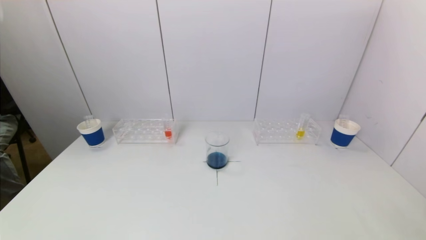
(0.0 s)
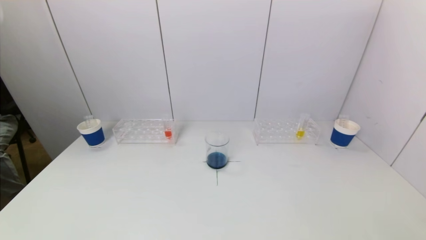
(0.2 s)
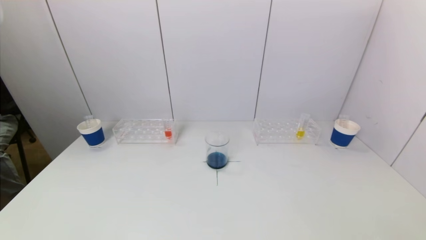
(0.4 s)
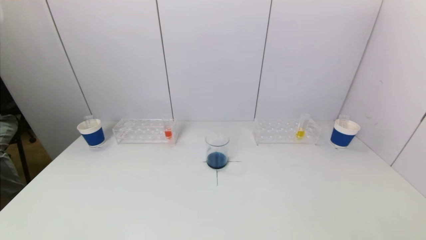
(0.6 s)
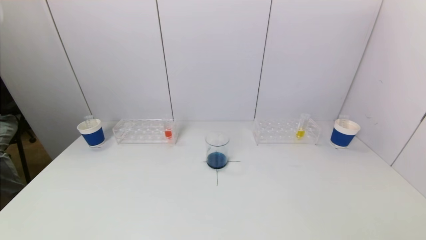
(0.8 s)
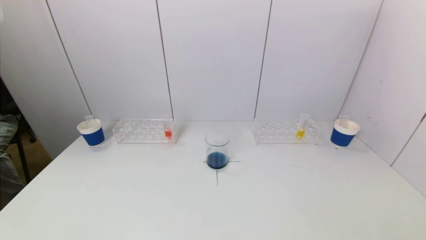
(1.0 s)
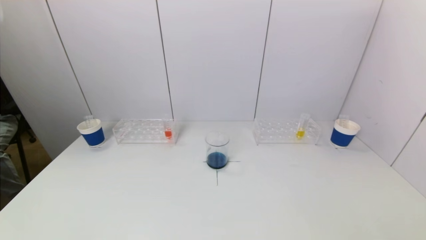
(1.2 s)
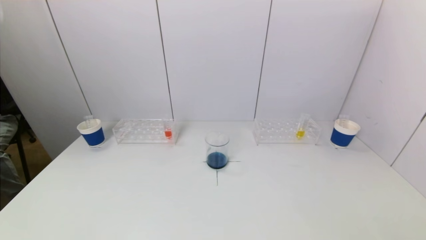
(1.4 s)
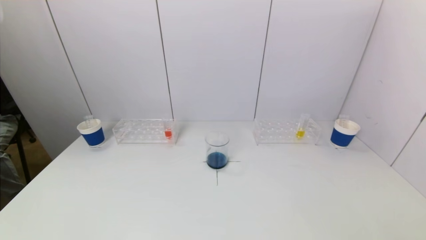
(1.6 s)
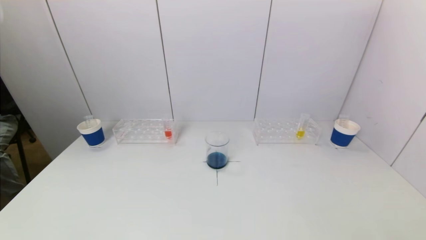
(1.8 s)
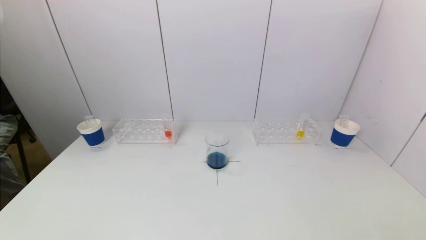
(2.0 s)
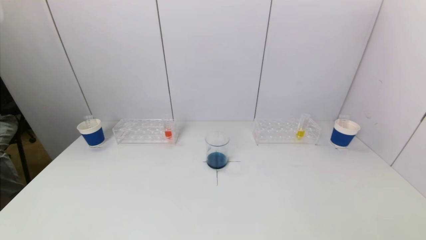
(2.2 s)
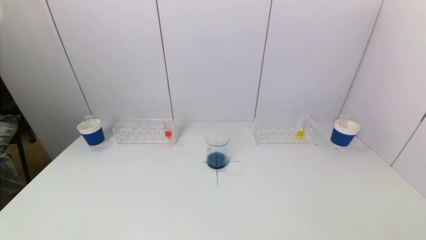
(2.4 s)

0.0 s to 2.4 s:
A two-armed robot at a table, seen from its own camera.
Task of the whole recording: pick up a test tube with pigment on left test tube rack and a test tube with pigment on right test tube rack by grippers and pour them into the beaker.
1.2 to 2.4 s: Both grippers stay put.

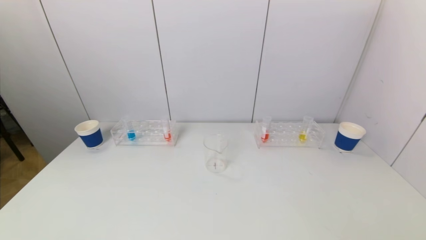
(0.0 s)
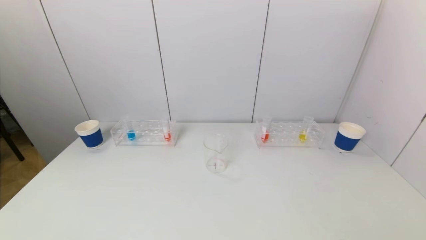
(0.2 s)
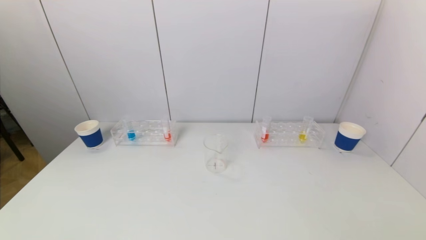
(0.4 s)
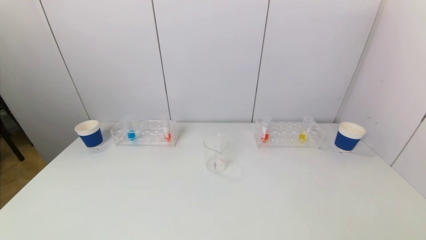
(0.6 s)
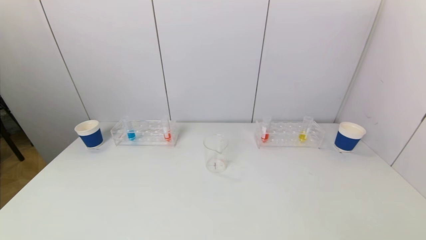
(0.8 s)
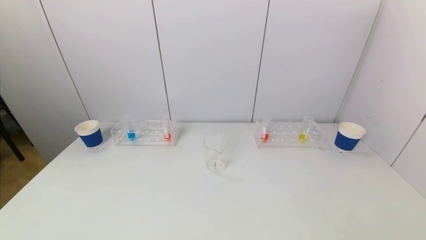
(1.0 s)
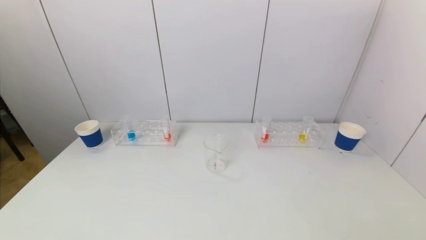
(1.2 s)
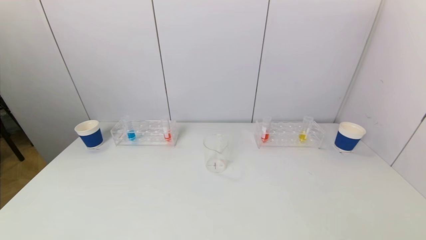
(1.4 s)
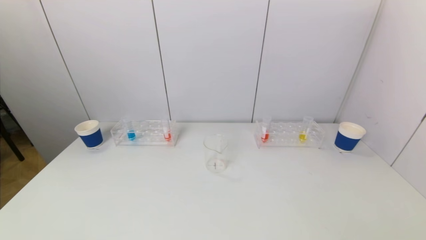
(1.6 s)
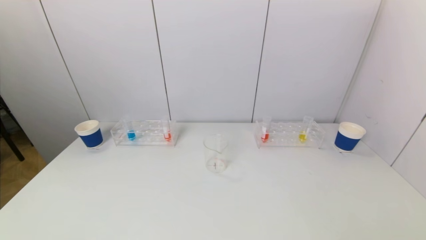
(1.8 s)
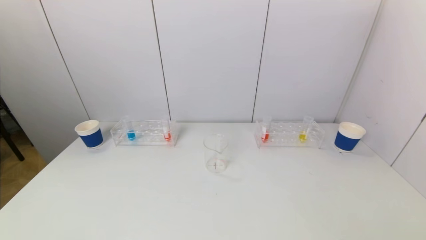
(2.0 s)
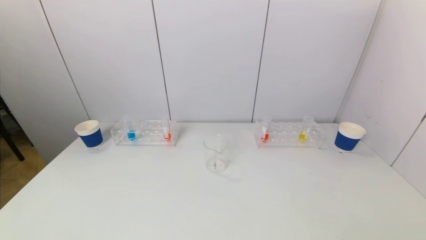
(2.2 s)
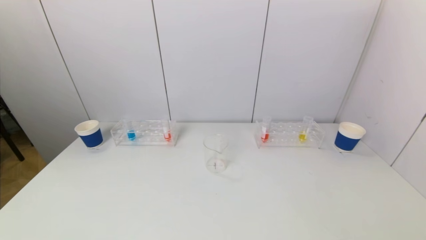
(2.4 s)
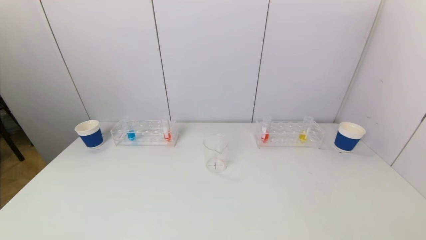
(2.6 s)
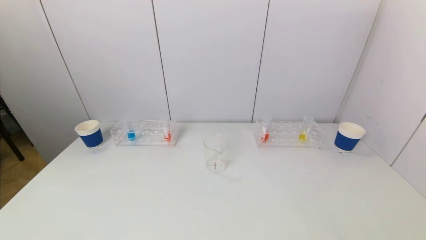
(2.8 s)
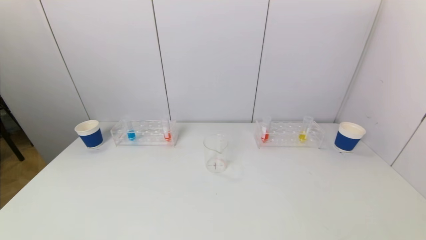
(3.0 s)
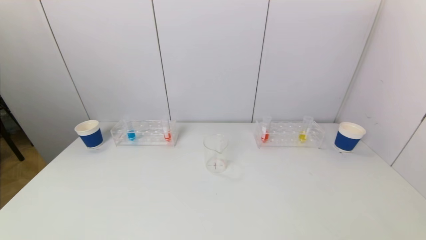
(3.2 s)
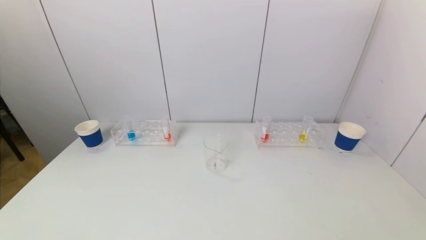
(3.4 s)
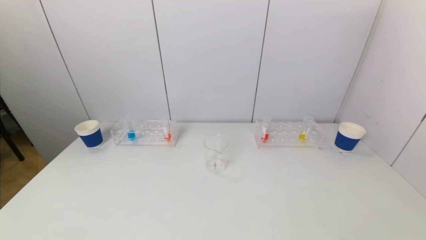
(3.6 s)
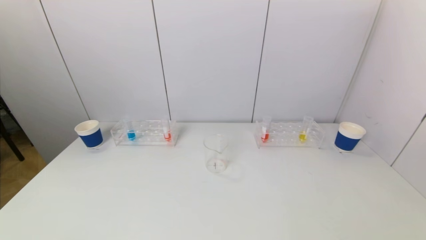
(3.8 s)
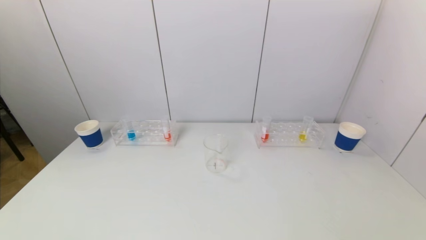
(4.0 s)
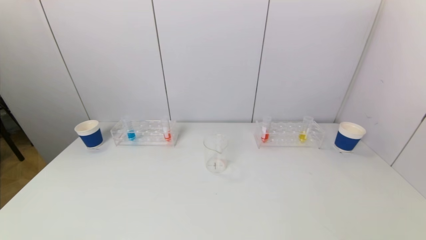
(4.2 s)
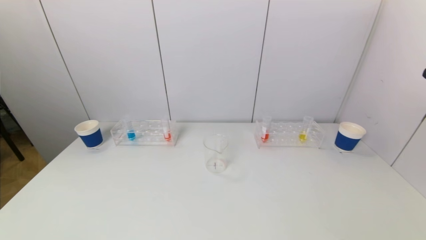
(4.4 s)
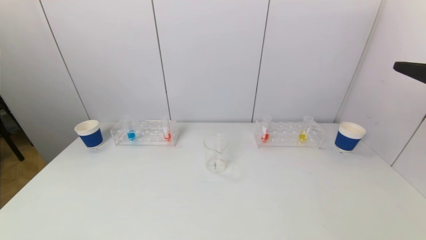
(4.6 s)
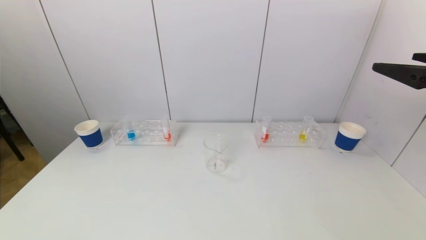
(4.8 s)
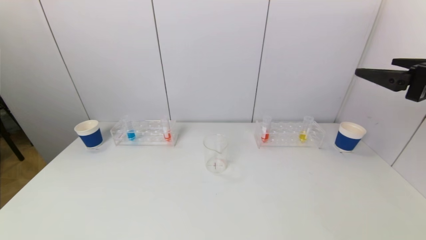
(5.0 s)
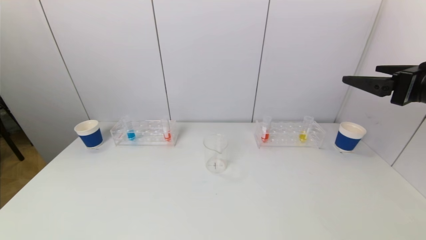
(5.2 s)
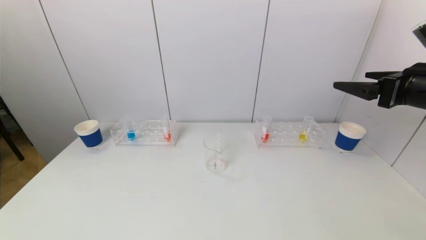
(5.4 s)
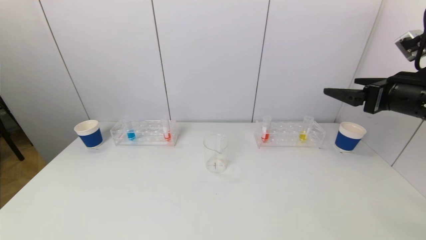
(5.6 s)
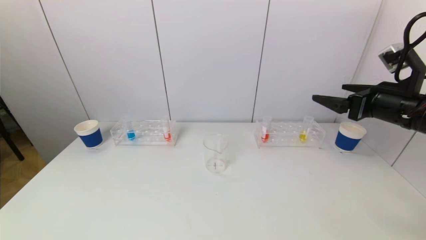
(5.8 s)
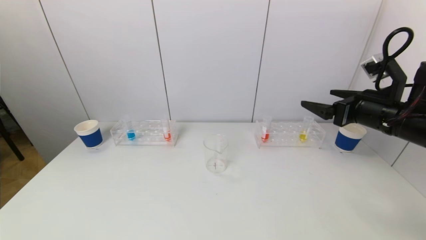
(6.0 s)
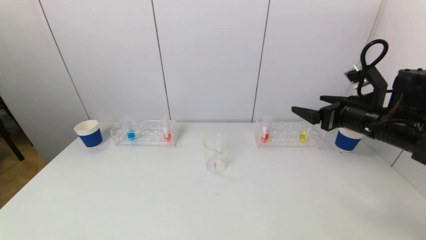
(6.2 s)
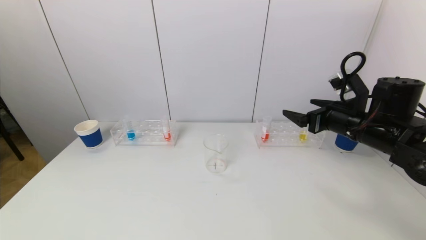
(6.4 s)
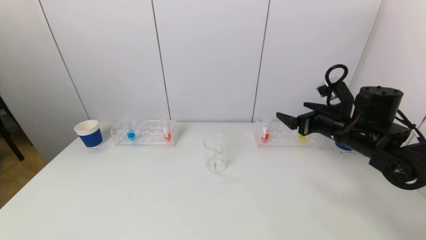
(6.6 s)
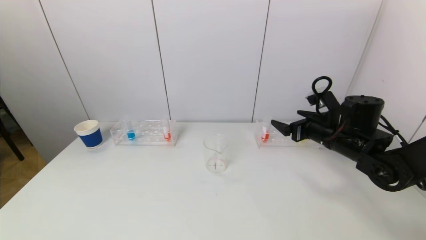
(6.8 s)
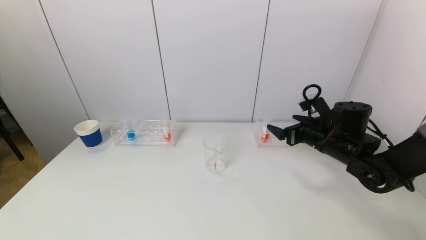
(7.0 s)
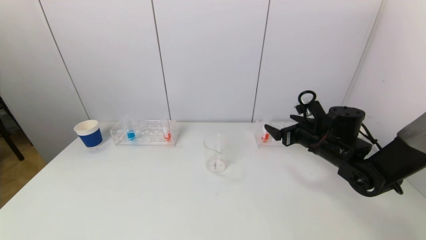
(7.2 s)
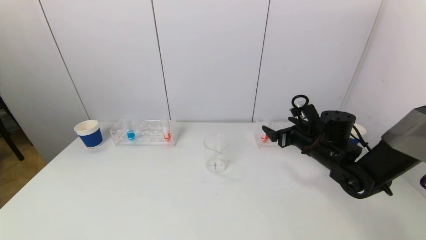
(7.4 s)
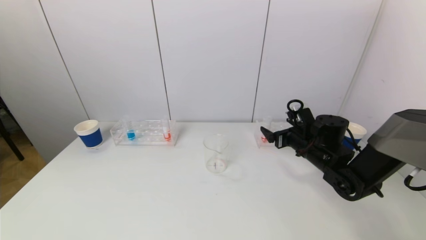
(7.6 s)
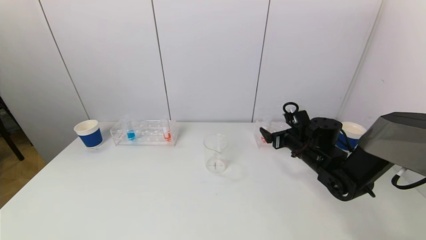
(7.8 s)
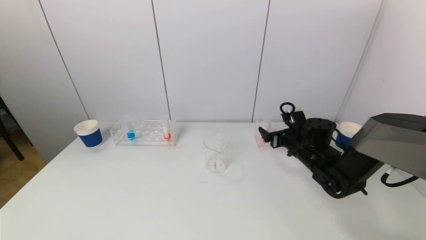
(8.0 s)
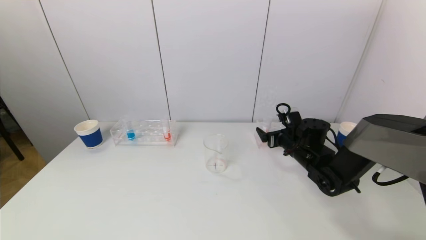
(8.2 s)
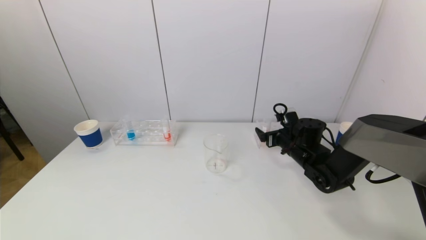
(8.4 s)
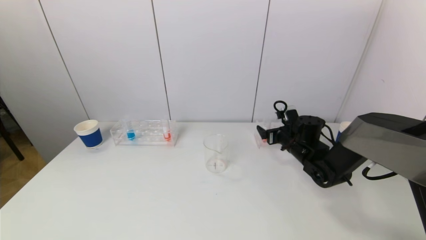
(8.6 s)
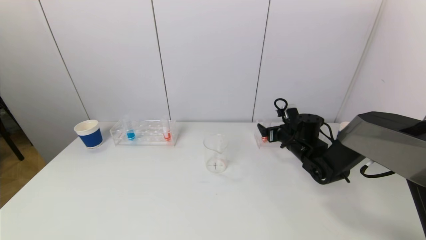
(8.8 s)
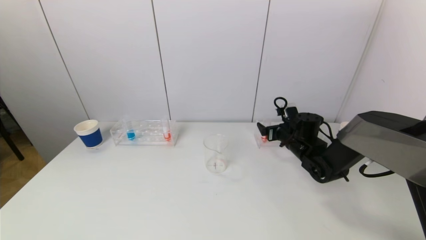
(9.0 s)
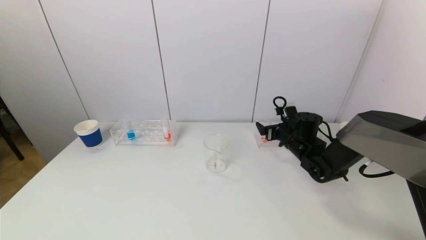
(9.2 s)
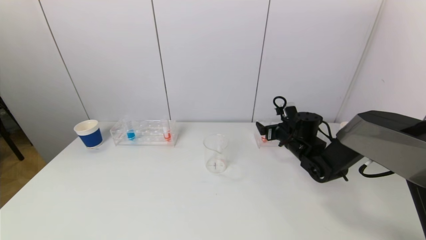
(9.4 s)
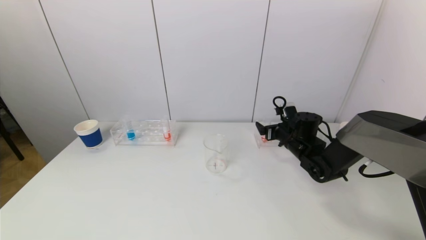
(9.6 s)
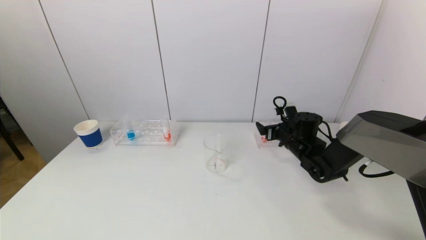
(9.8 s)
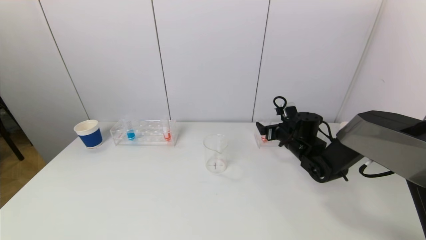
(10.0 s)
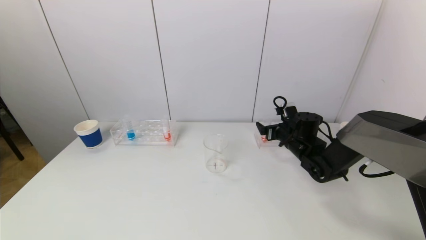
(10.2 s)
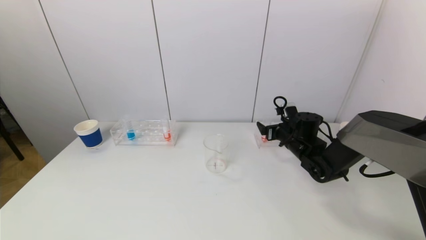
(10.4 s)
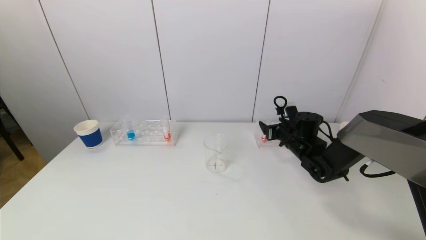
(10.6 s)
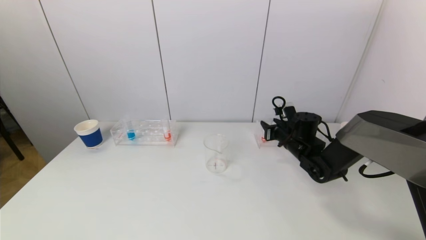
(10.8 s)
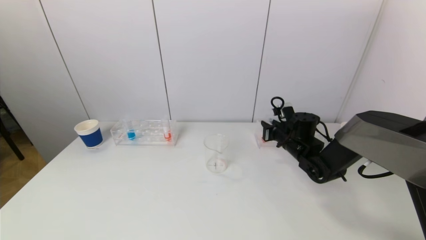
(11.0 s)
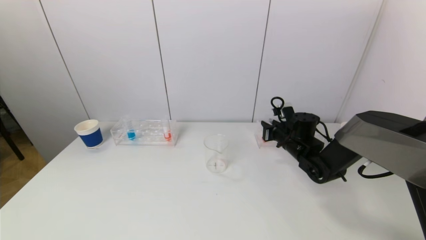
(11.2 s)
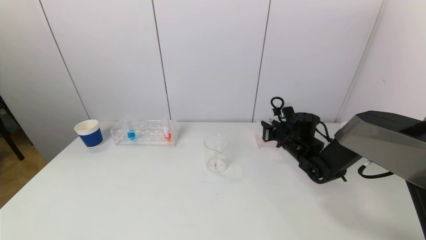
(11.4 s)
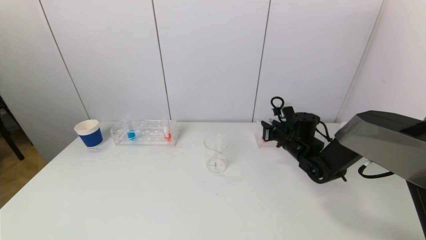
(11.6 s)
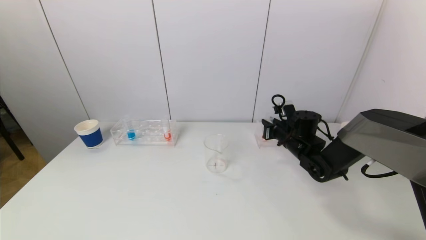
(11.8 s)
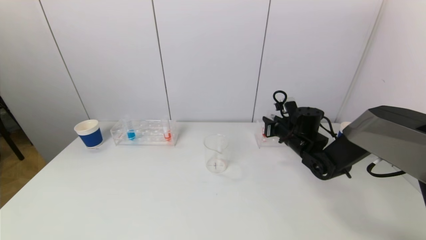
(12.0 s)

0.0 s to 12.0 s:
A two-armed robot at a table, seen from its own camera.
Task of the whole recording: pick up a test tube with pigment on left test tube rack and a test tube with pigment on right test tube rack by grippers and pour them into the beaker.
Step, 0.0 to 11.2 s: Grasp the red reagent with the right gripper.
0.0 to 1.6 s: Both grippers stay put.
4.4 to 6.0 s: The right gripper goes about 20 cm forward and downward.
6.0 to 7.6 s: The right gripper travels downward, forward and to the left by roughly 20 cm.
7.6 to 9.0 s: The right gripper travels forward by approximately 5 cm.
9.0 to 10.4 s: Both grippers stay put.
10.4 to 12.0 s: The right gripper closes.

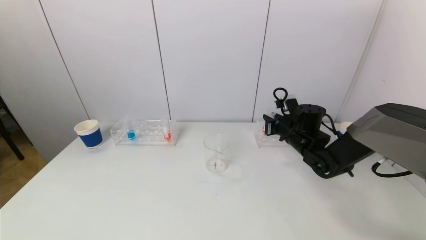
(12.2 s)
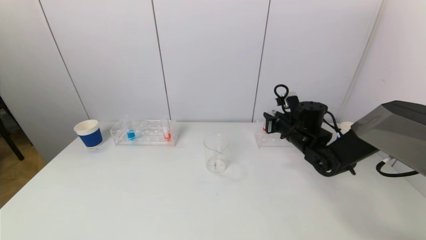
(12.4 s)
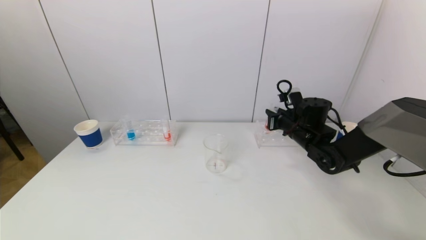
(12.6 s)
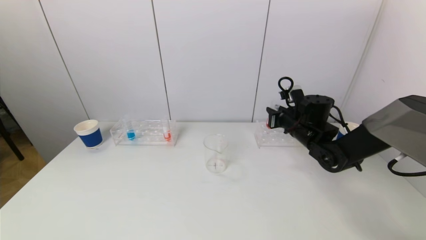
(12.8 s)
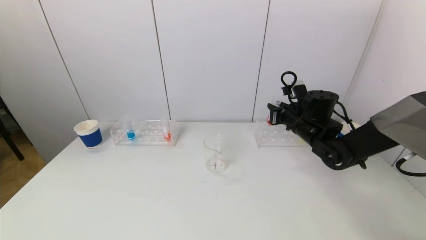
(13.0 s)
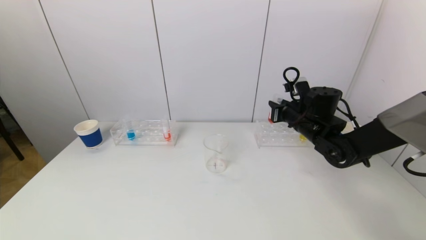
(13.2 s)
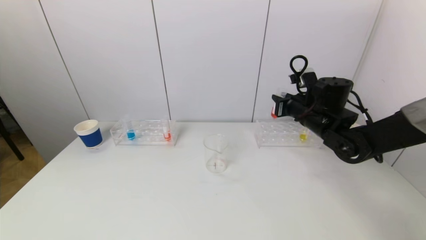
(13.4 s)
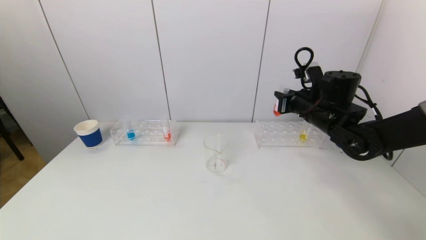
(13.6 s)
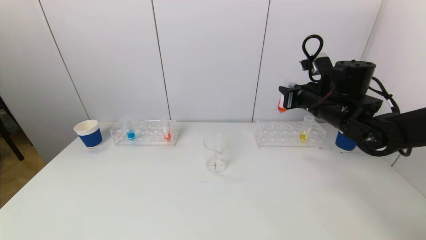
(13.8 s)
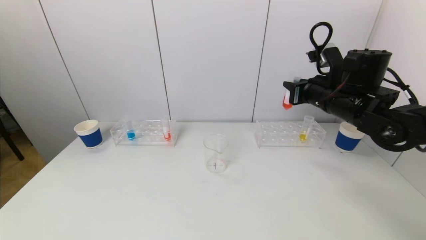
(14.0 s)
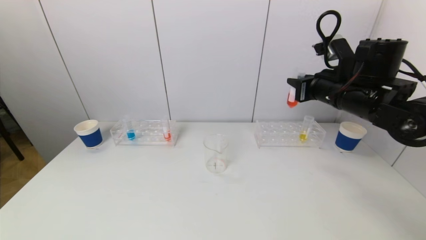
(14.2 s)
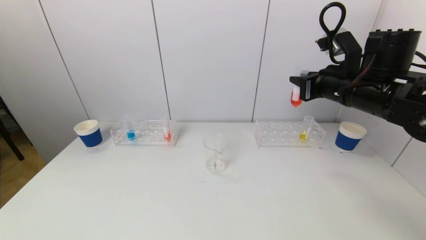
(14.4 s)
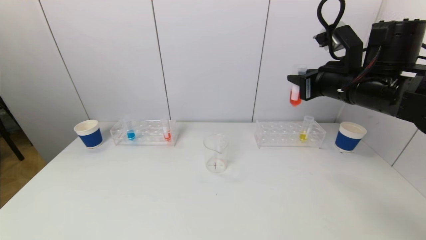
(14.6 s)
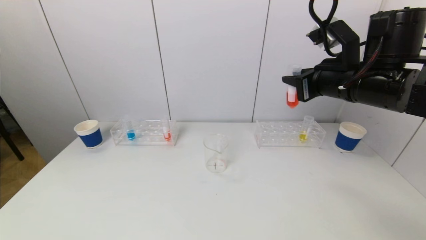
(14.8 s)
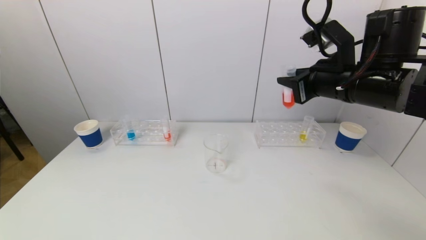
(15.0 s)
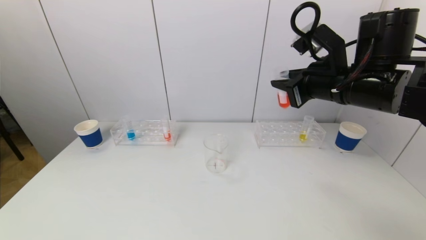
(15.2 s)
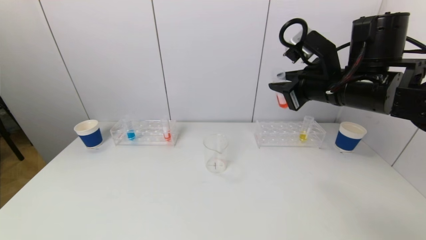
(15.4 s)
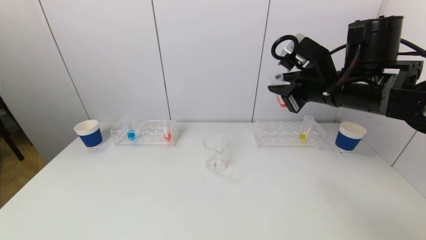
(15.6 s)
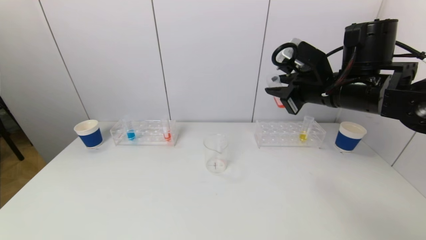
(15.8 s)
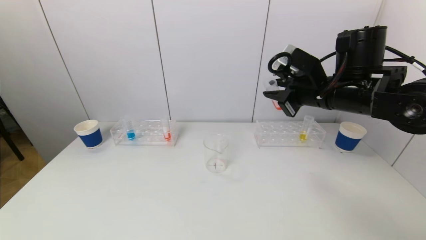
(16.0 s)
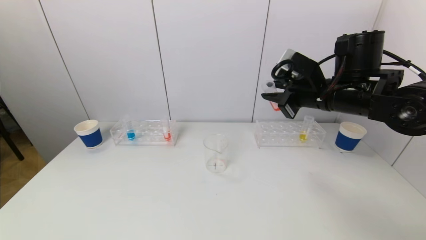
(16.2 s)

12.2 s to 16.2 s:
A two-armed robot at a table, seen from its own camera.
Task of the whole recording: pick up a test tube with pigment on left test tube rack and a test tube with pigment on right test tube rack by grippers and pour them into the beaker.
12.2 to 13.6 s: The right gripper travels upward by some 10 cm.
13.6 to 14.8 s: The right gripper heads upward and backward, covering roughly 10 cm.
